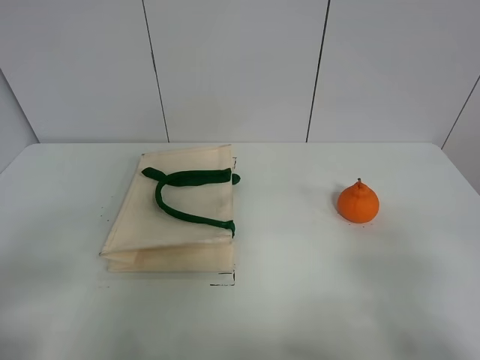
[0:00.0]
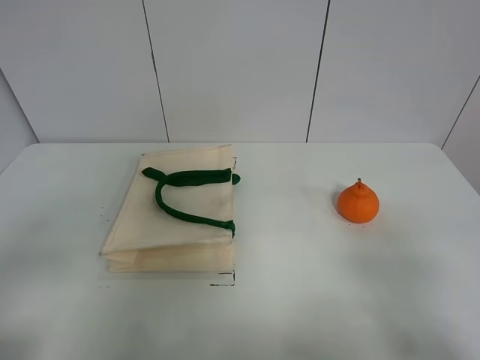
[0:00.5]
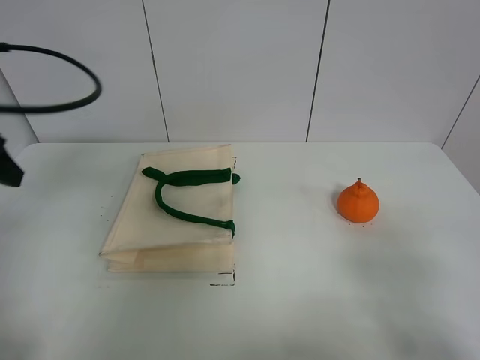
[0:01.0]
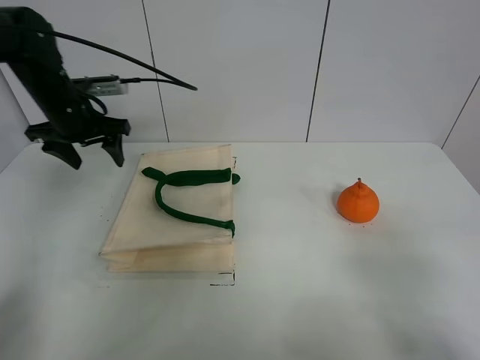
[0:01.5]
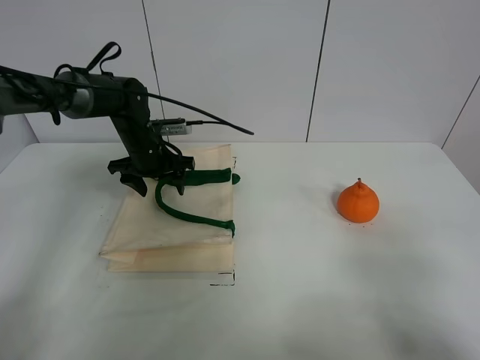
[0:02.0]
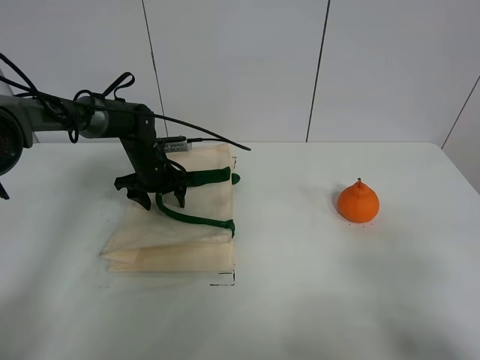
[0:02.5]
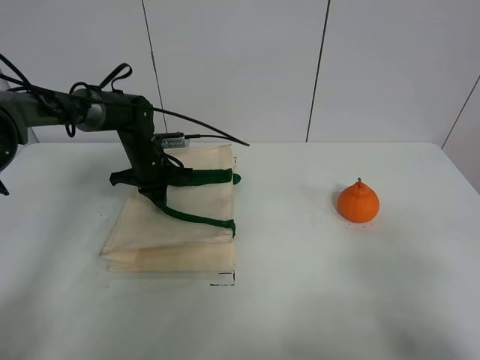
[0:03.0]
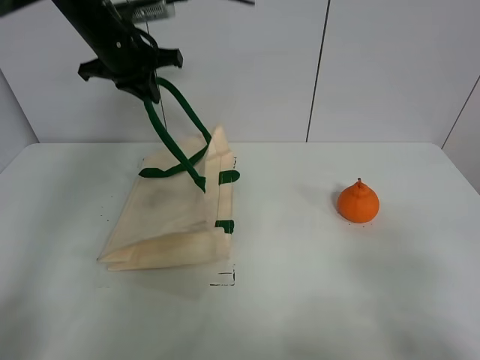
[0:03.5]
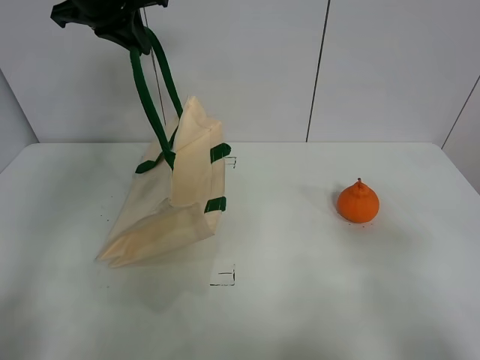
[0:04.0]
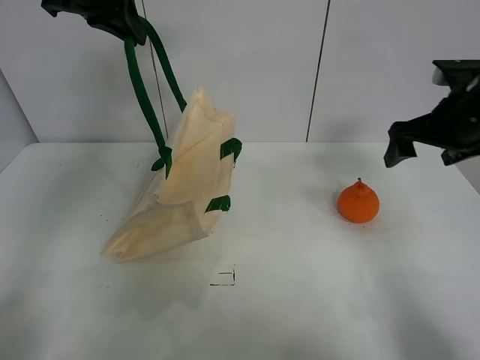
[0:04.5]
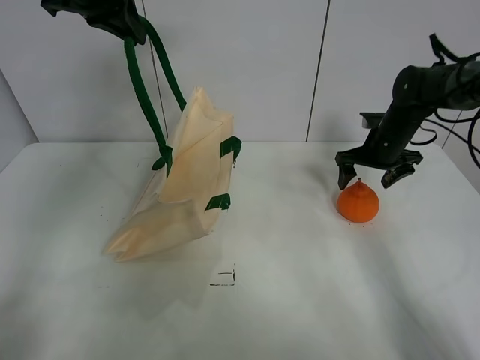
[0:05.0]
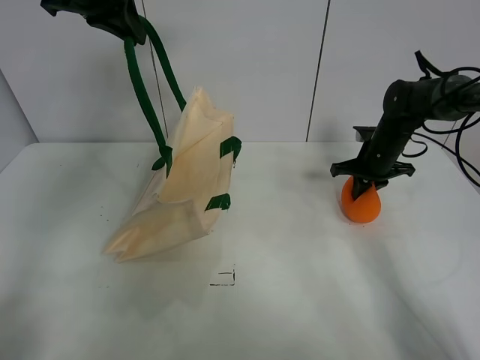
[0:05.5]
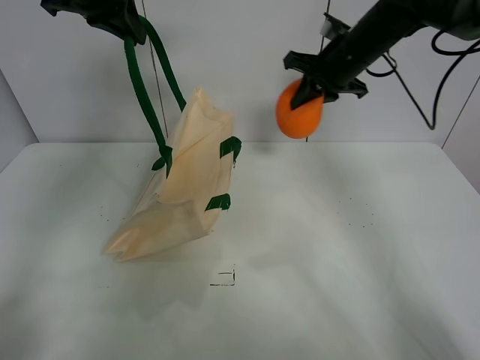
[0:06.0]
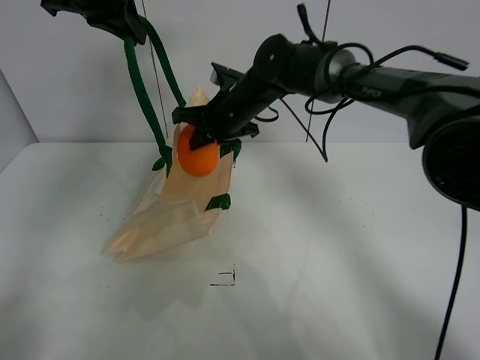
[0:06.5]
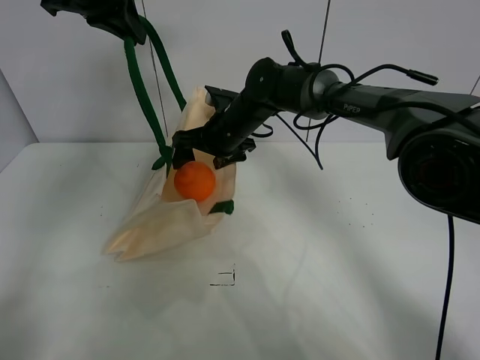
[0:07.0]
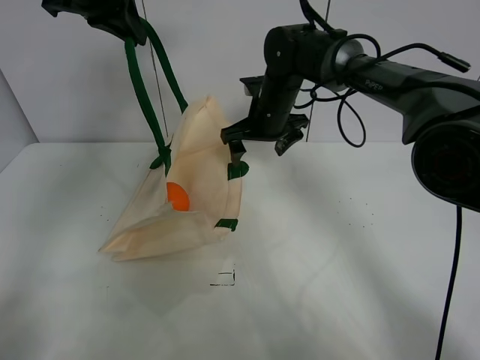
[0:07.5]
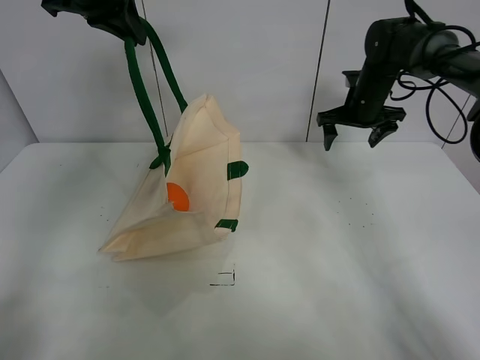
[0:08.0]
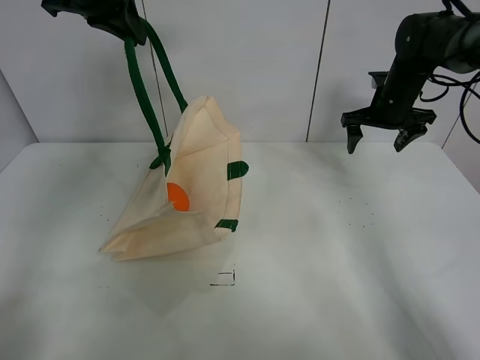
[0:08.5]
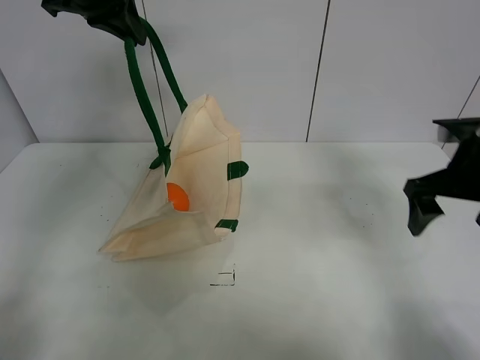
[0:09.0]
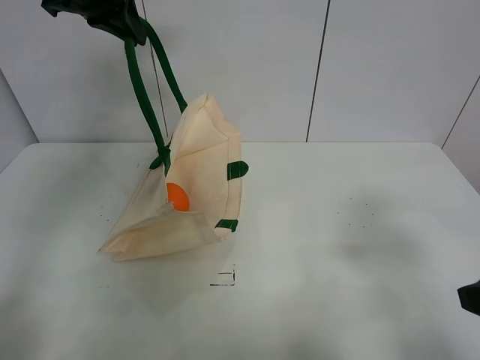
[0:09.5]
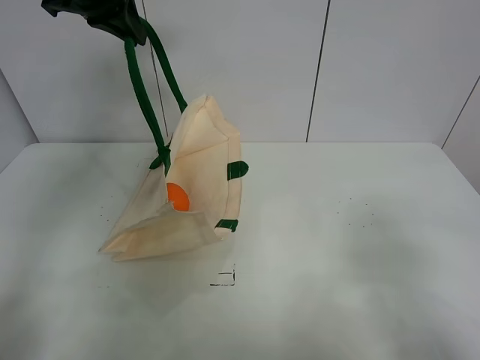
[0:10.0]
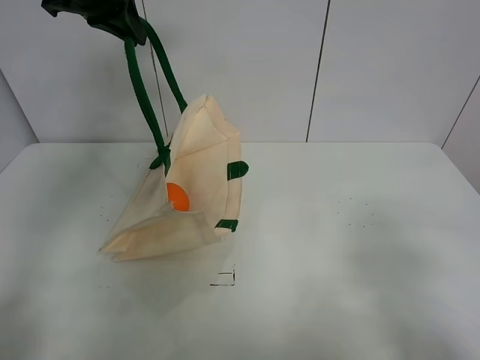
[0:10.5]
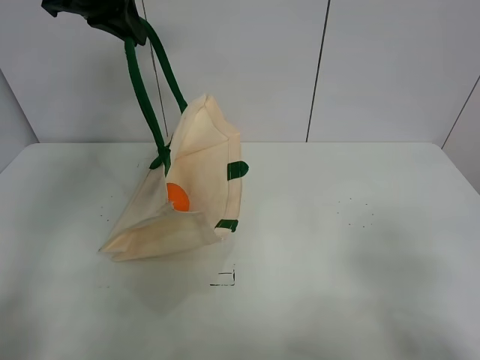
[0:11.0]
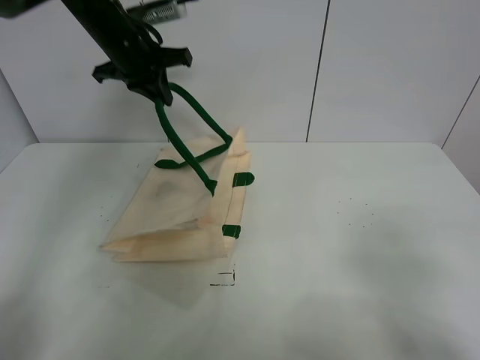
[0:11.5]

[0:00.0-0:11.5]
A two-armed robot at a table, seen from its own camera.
Task of the whole recording: open the white linen bag and put the orange in the bag.
Step, 0:00.0 to 0:03.5: Lift the handbag with left gripper.
Step, 0:04.0 to 0:05.5: Grasp the orange with right gripper.
Step, 0:06.0 to 0:07.0: Place the orange in the handbag with right gripper.
0:00.0 to 0:02.0: The left gripper moves forward, approximately 40 cm.
0:02.0 to 0:04.0: The left gripper heads upward, covering approximately 25 cm, and closes its fingers. The right gripper goes some 5 cm forward.
0:04.0 to 0:06.0: The right gripper is displaced forward by roughly 35 cm, and closes up.
0:06.0 to 0:07.5: The right gripper shifts approximately 10 cm to the left and downward, and opens its fingers.
0:07.5 to 0:09.5: The right gripper heads backward and to the right, covering some 40 cm.
0:09.5 to 0:11.5: The right gripper heads backward, covering about 10 cm; the left gripper heads downward and forward, covering some 15 cm.

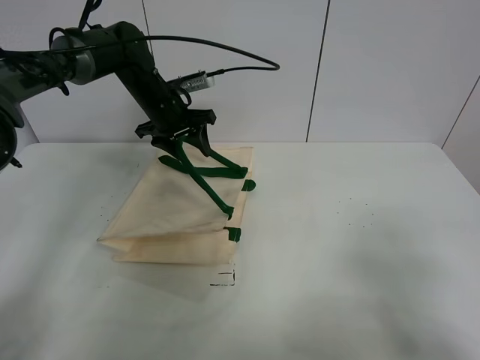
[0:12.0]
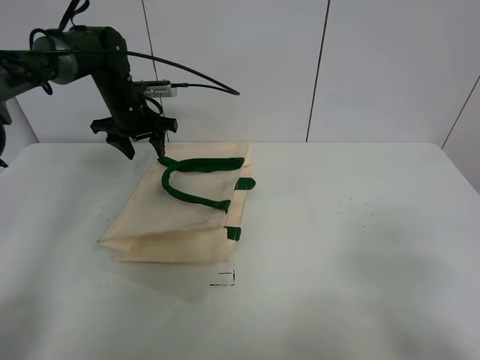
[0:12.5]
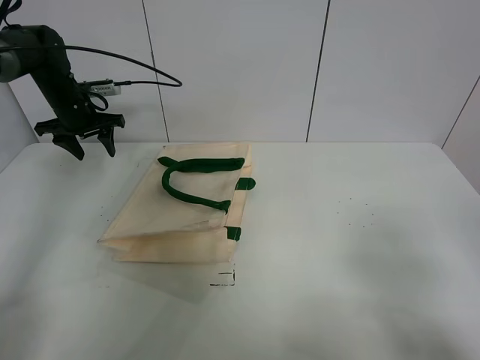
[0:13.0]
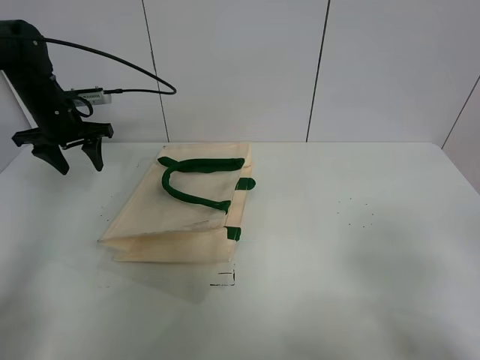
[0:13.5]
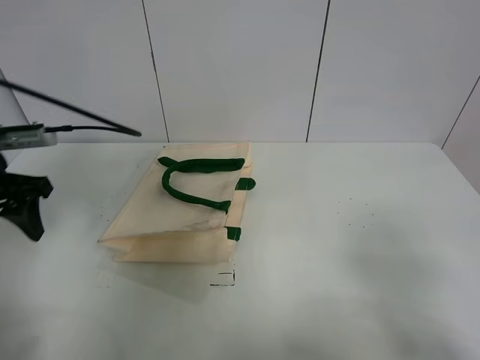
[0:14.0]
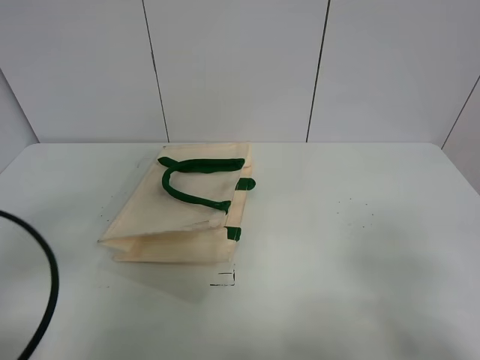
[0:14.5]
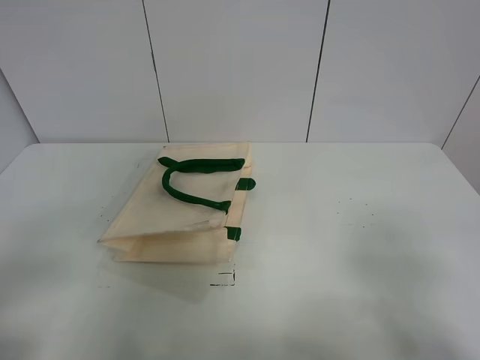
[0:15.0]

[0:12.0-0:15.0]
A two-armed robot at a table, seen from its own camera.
Task of the whole recording: open the white linen bag and put the orange in the bag.
0:12.0 to 0:13.5: The left gripper is displaced to the left by about 15 cm.
0:13.5 to 0:15.0: The left gripper travels backward by roughly 40 cm.
